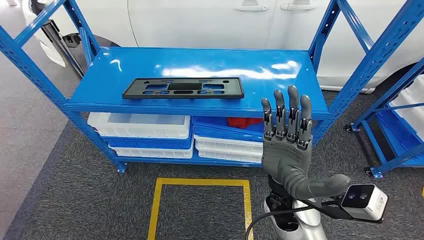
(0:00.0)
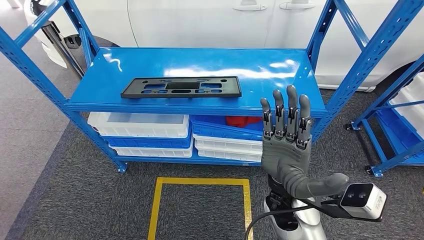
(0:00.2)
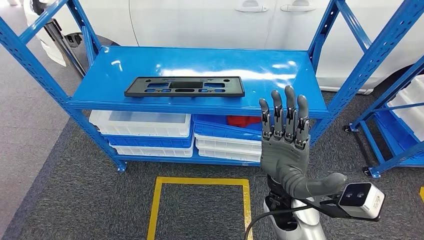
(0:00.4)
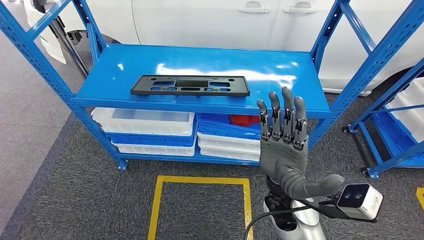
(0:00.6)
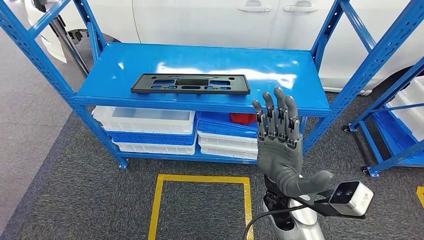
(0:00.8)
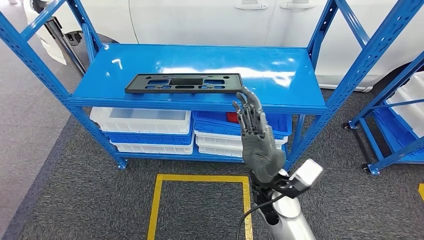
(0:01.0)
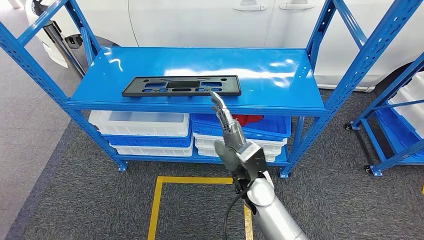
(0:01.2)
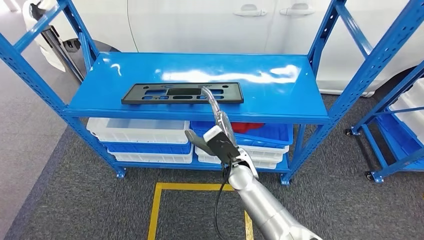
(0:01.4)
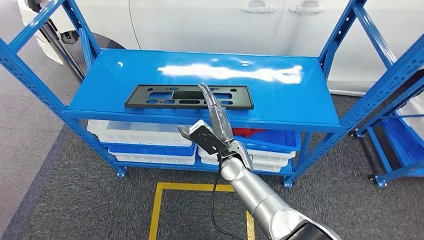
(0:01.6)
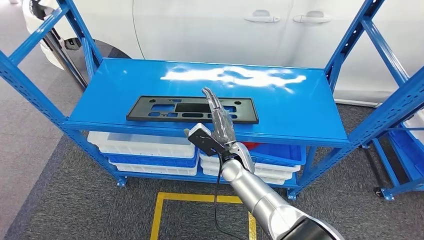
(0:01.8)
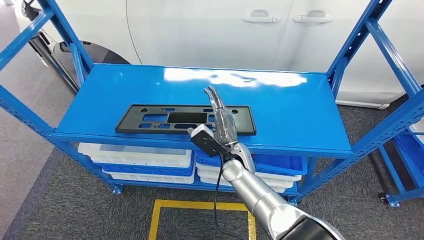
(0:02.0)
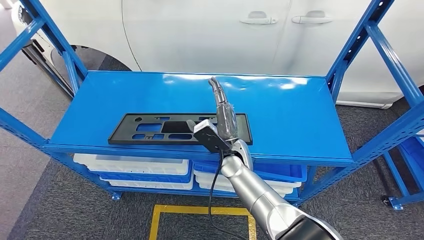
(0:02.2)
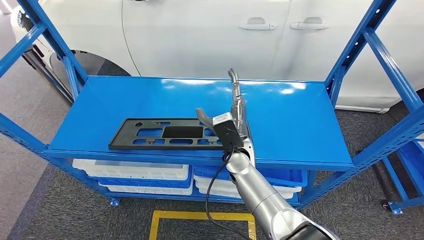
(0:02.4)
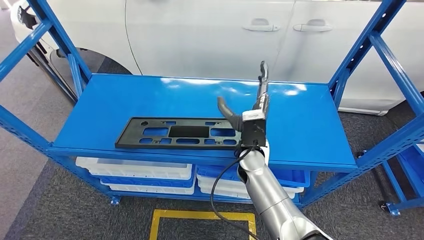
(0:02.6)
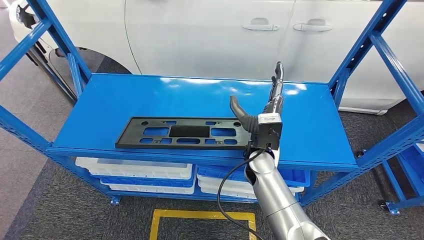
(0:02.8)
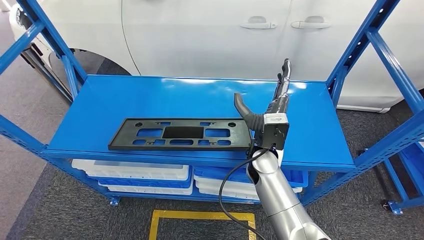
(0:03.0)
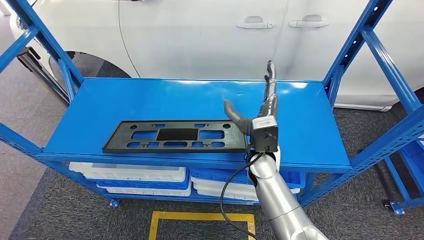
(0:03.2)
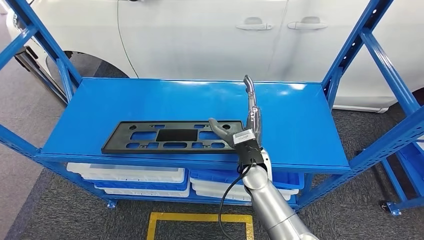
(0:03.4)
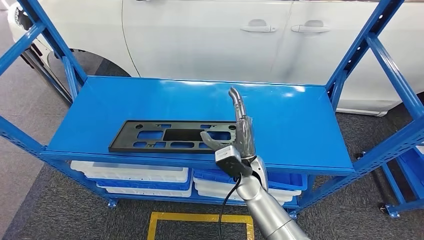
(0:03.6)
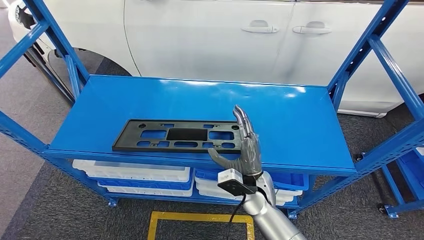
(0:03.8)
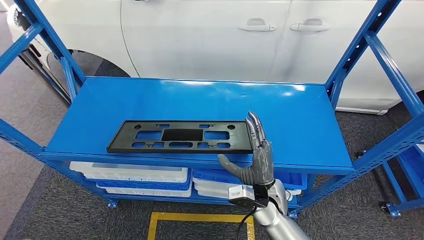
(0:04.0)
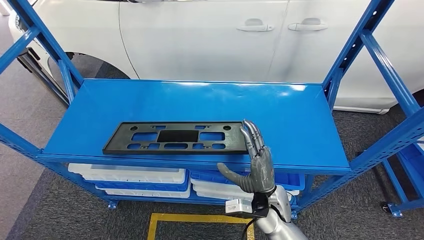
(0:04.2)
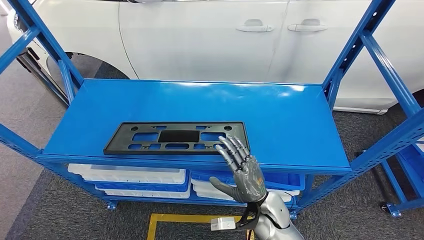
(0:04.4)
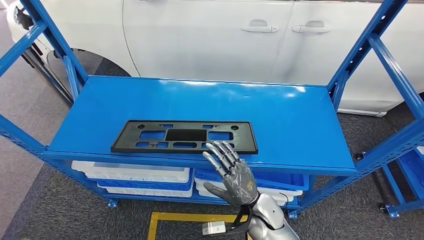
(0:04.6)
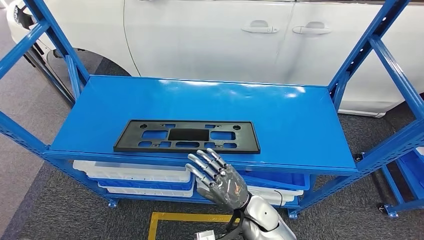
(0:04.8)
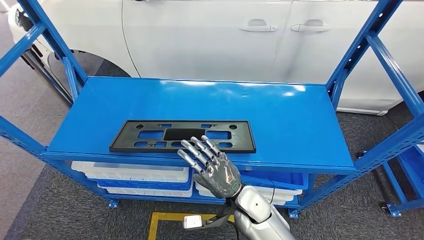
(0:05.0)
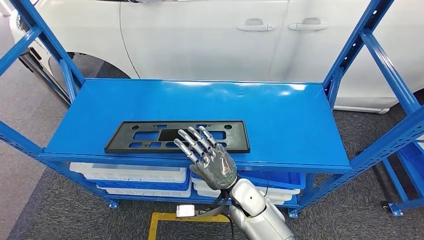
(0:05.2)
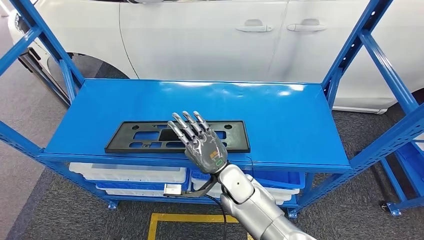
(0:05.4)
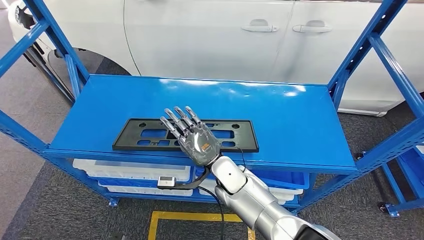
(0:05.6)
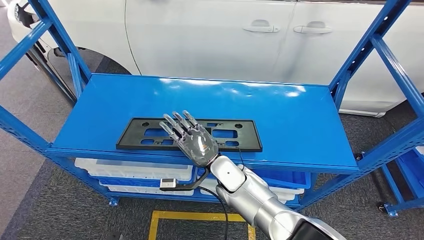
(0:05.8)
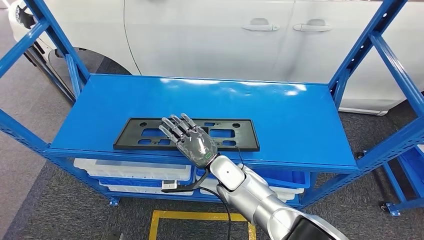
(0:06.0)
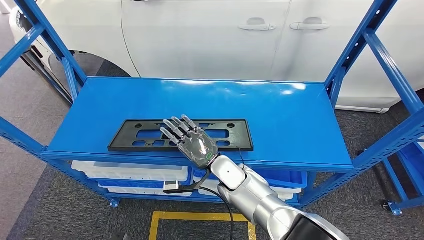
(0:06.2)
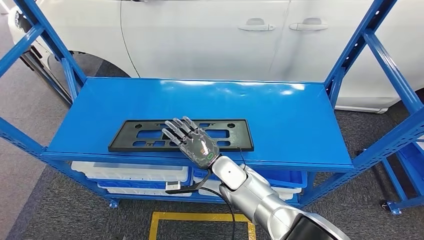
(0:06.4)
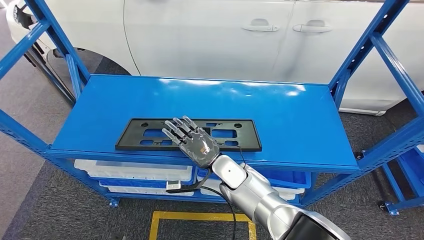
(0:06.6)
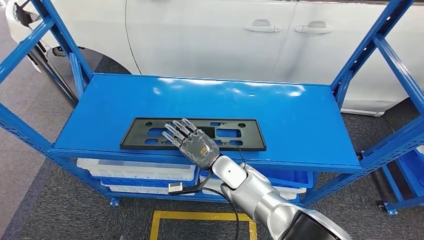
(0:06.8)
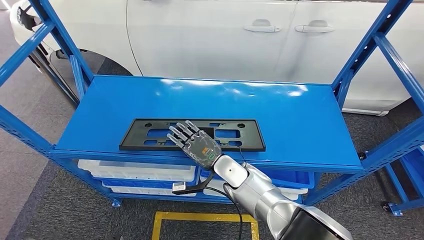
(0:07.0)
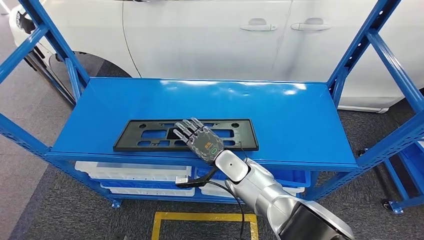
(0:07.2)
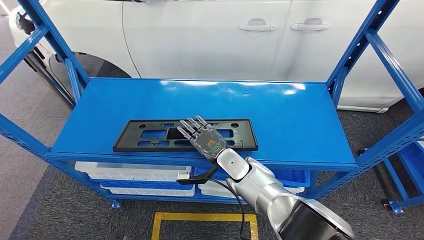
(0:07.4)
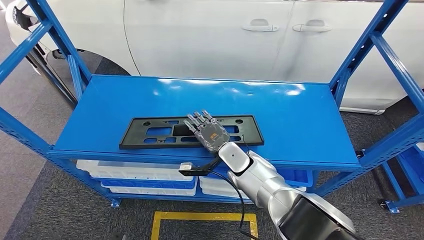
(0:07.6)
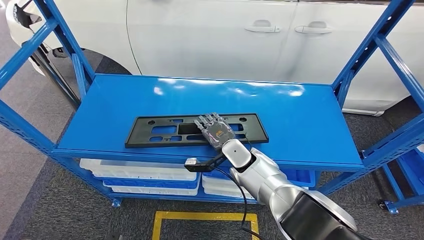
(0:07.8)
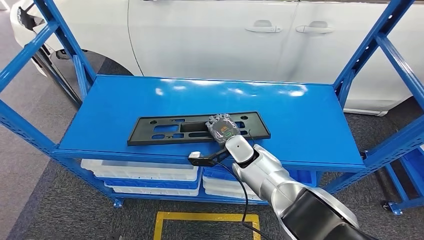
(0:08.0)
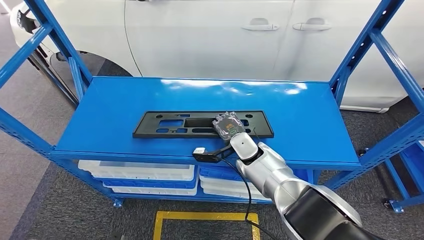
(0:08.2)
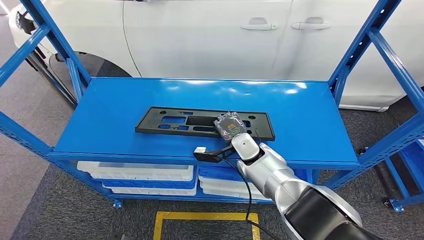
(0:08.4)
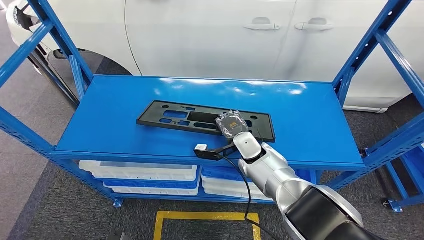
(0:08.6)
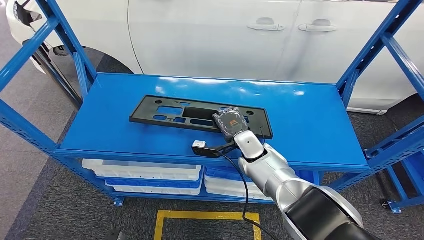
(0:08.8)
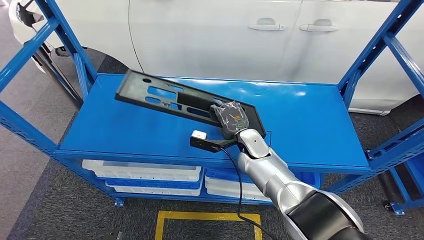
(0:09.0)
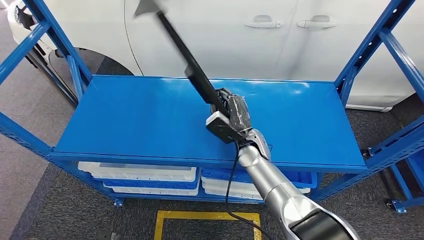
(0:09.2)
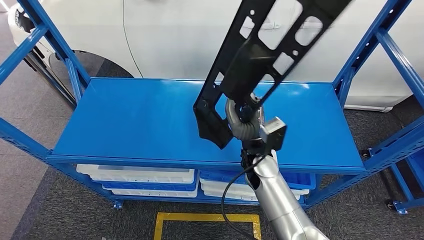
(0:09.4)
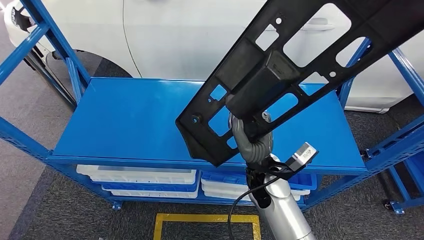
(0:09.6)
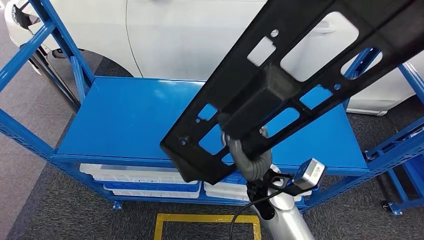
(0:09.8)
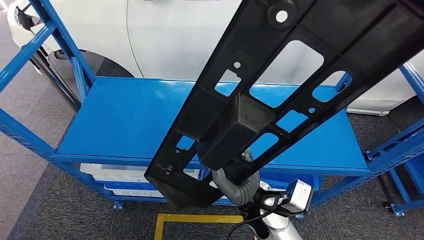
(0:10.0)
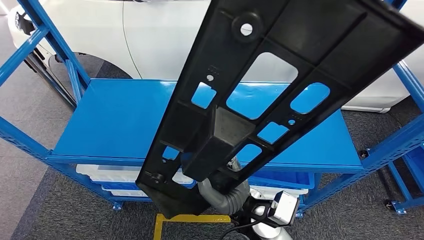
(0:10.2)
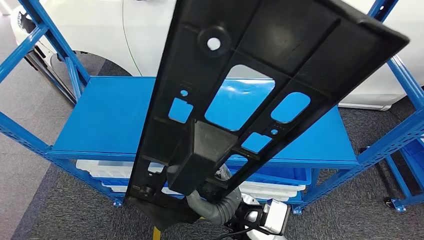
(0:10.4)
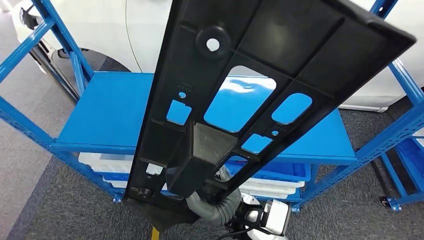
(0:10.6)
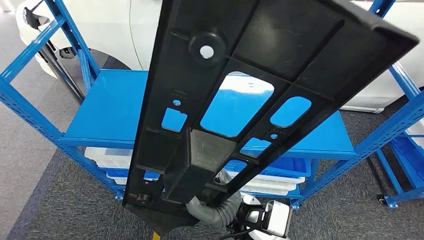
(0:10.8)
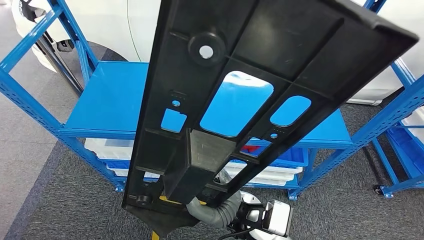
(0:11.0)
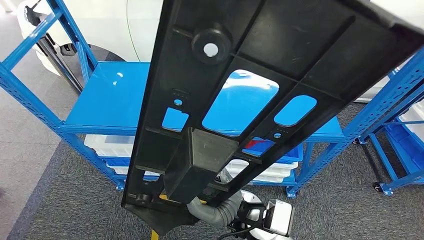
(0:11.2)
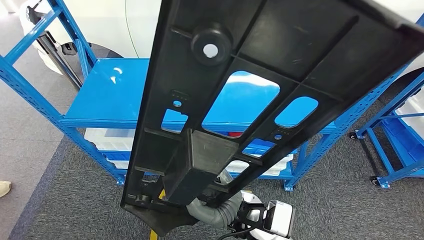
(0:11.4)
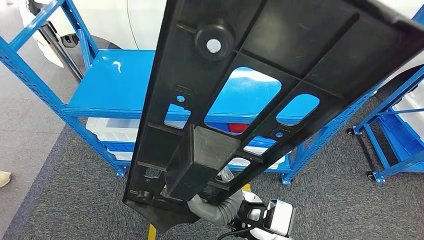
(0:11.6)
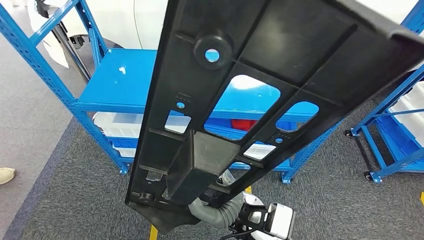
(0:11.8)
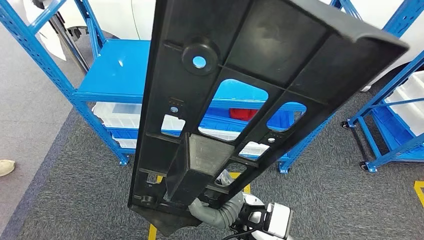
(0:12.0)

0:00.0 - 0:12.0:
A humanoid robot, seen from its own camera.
Step, 0:00.0 - 0:10.2: Pick up the large material from the shelf.
0:06.0 - 0:07.6: The right hand moves about 5 cm.

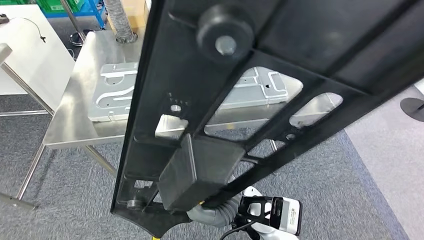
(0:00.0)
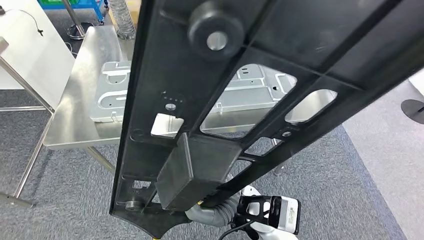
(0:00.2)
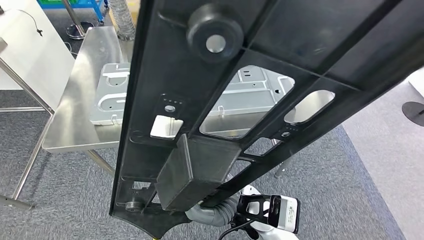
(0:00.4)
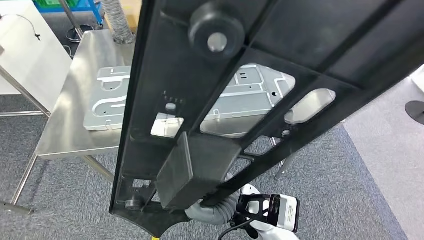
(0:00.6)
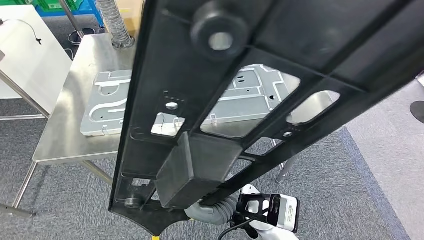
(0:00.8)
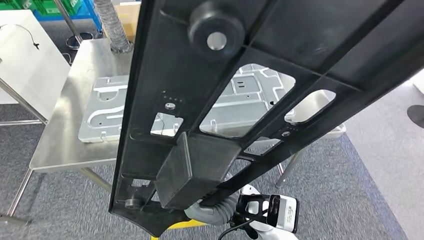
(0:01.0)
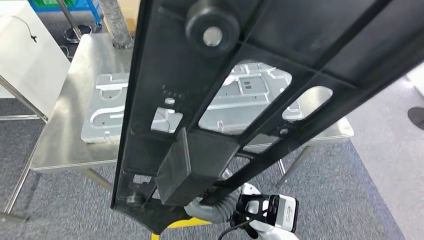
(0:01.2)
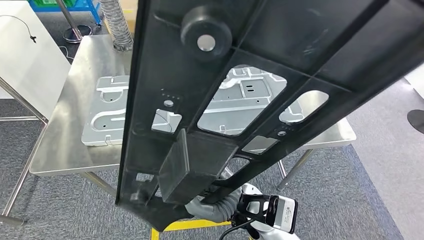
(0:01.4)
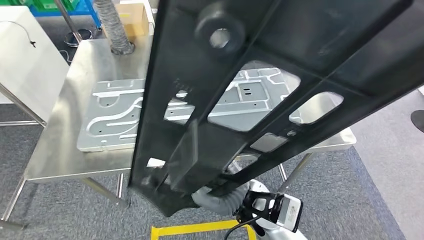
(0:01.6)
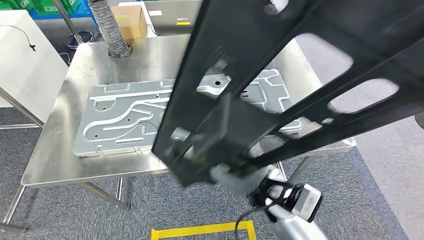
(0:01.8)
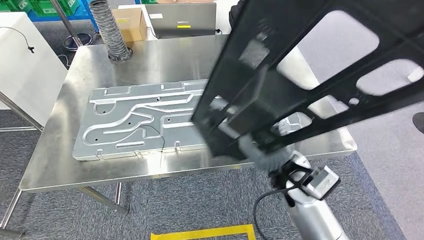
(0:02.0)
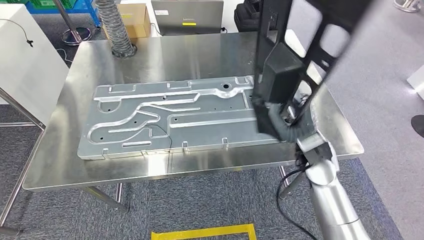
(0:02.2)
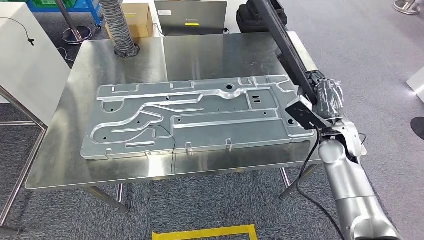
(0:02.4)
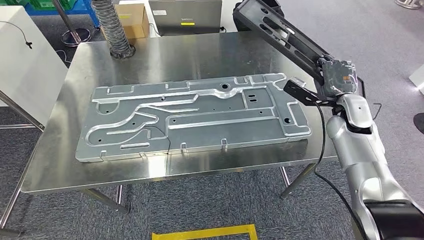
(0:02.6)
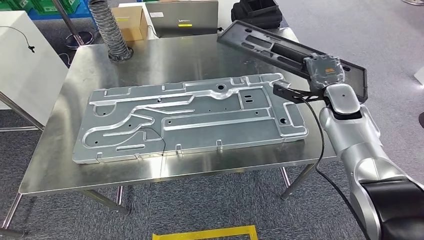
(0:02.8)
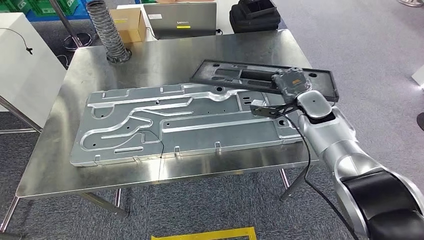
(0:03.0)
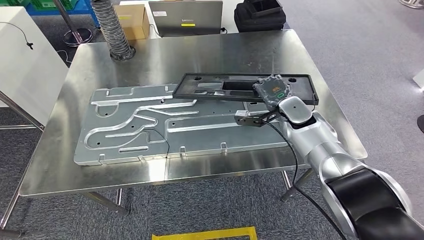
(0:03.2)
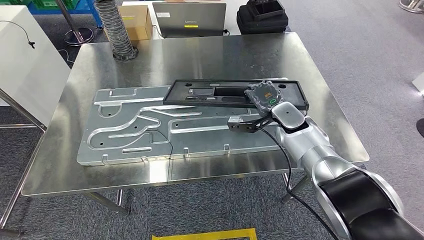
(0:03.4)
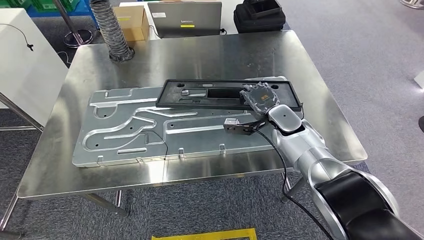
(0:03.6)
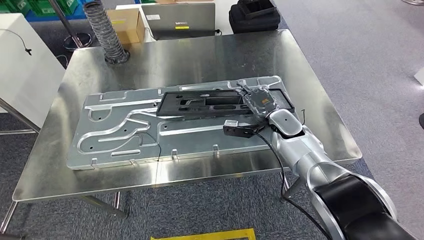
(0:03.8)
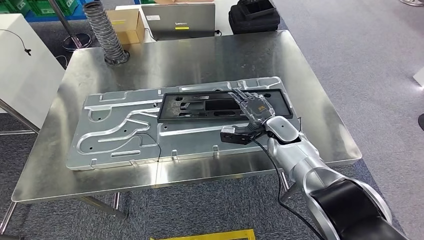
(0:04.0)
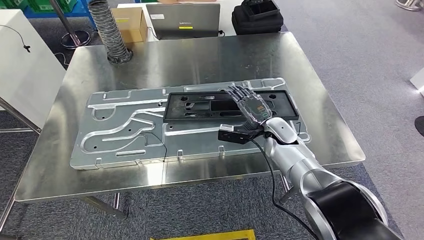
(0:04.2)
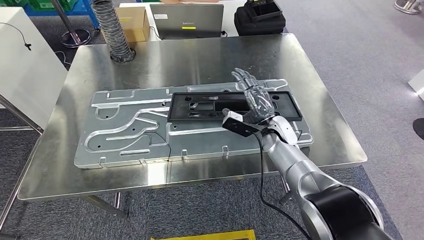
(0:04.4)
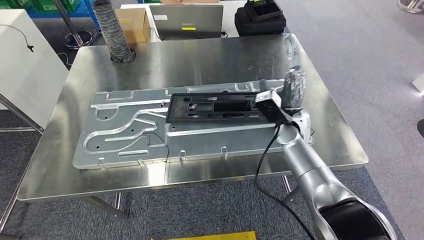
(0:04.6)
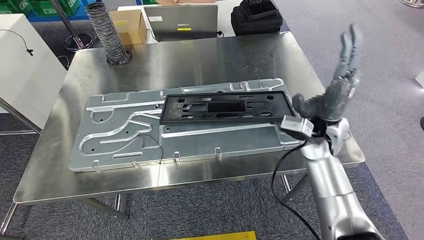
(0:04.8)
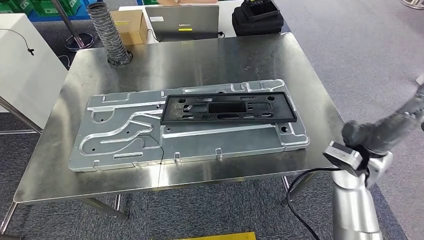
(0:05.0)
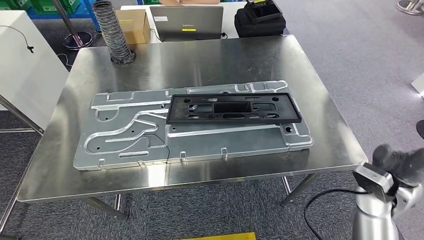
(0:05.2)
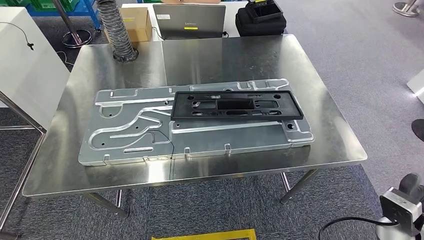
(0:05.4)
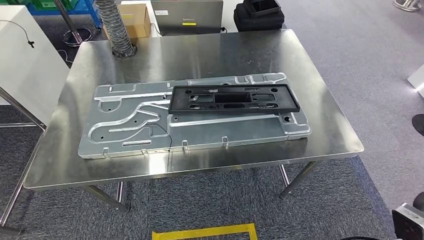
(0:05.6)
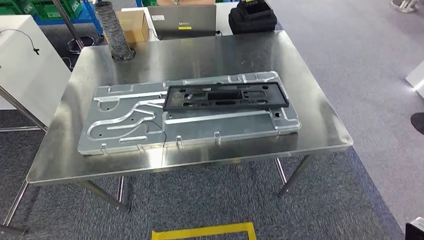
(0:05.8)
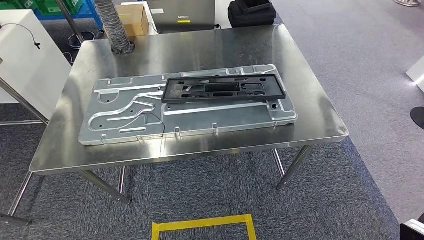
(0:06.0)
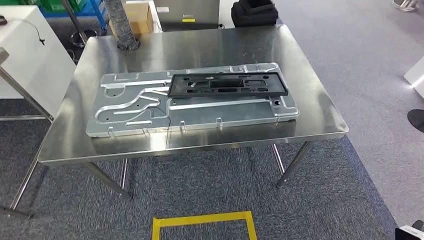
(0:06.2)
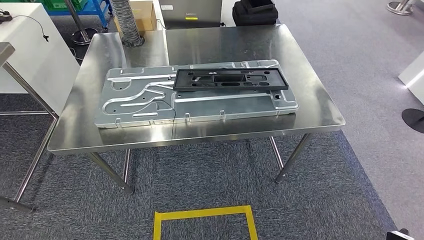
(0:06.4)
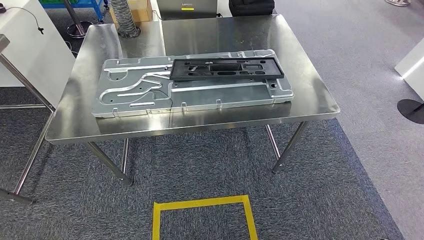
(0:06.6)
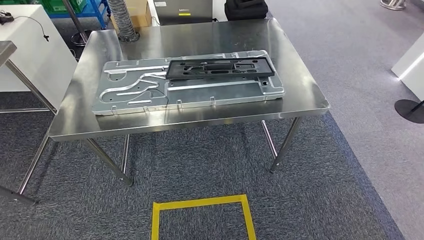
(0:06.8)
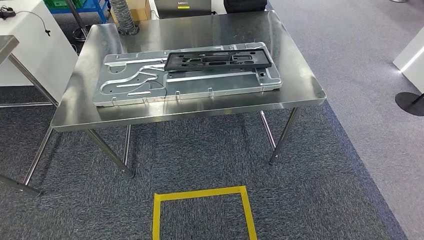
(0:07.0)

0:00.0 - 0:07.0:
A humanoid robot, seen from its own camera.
Step, 0:00.0 - 0:02.8: Move the large material to the workbench.
Step, 0:03.4 - 0:05.8: Insert the large material into the corresponding slot on the workbench.
